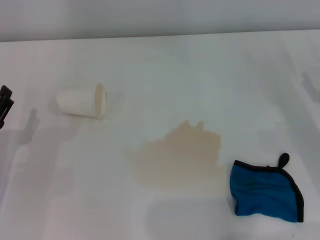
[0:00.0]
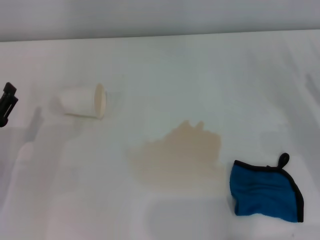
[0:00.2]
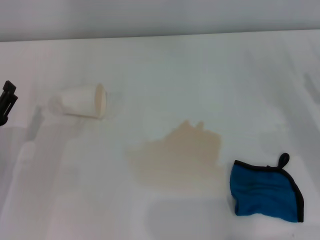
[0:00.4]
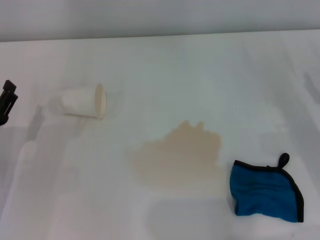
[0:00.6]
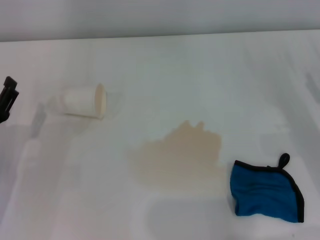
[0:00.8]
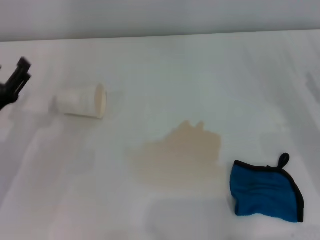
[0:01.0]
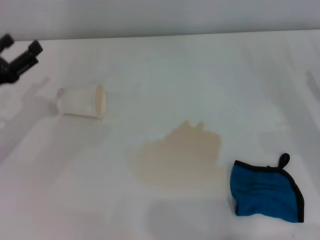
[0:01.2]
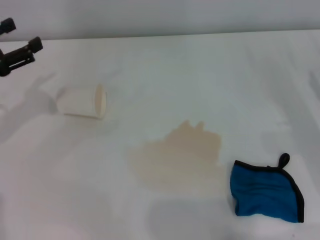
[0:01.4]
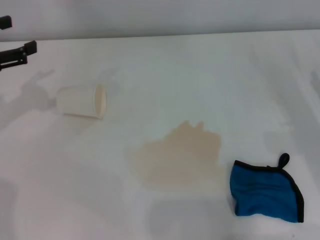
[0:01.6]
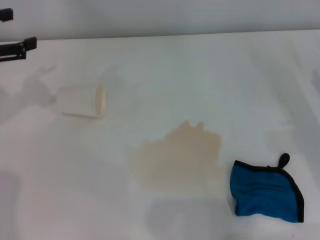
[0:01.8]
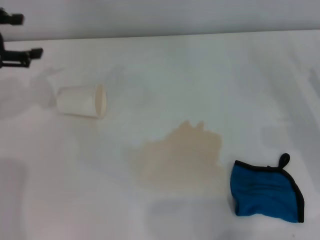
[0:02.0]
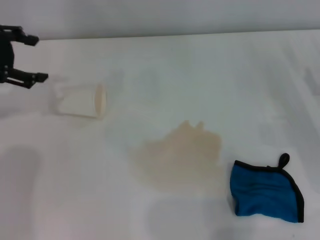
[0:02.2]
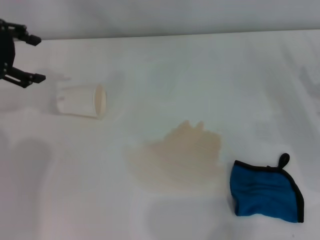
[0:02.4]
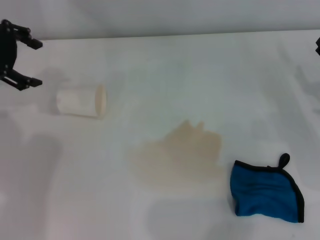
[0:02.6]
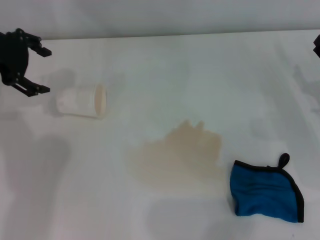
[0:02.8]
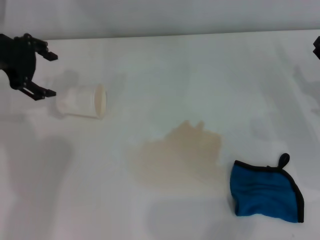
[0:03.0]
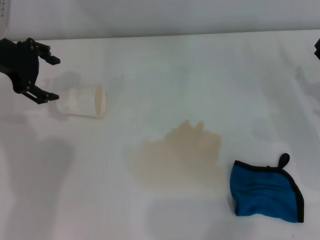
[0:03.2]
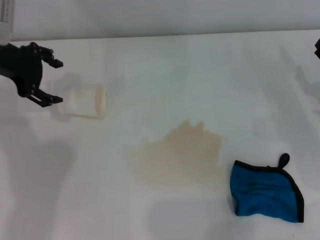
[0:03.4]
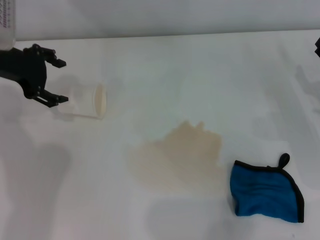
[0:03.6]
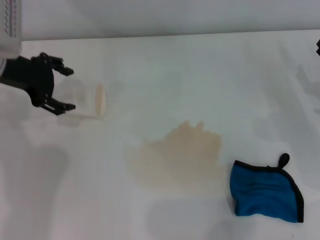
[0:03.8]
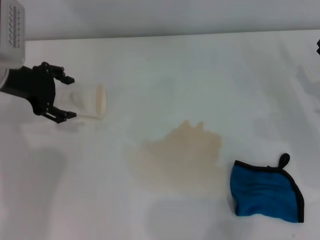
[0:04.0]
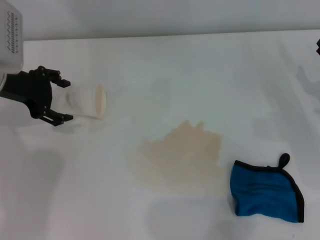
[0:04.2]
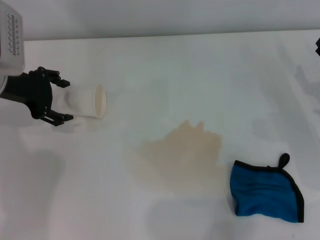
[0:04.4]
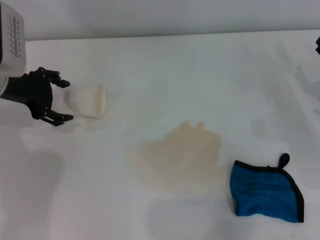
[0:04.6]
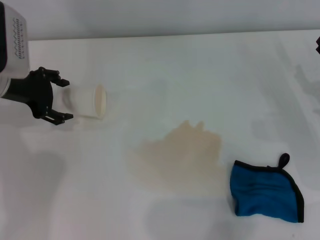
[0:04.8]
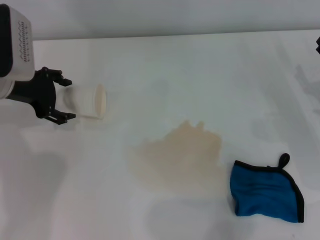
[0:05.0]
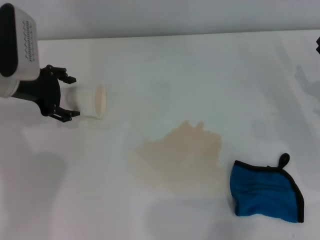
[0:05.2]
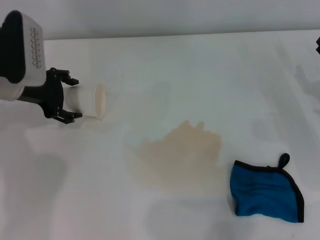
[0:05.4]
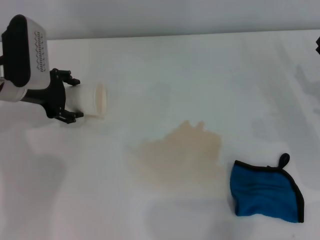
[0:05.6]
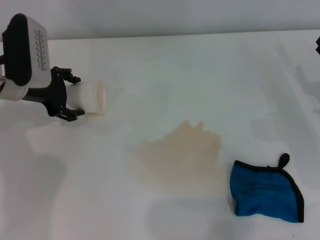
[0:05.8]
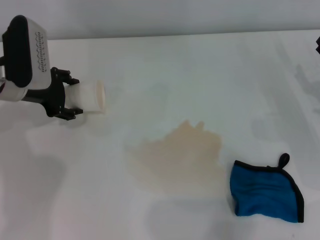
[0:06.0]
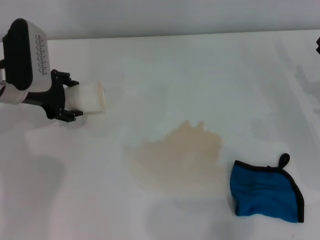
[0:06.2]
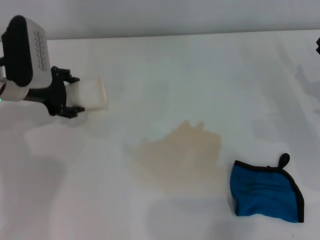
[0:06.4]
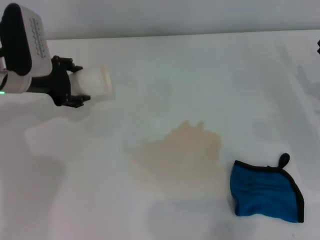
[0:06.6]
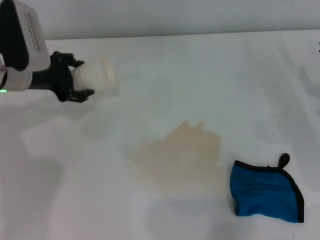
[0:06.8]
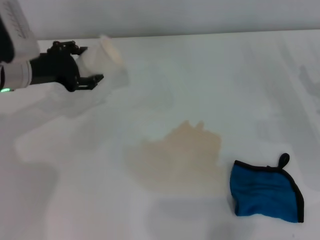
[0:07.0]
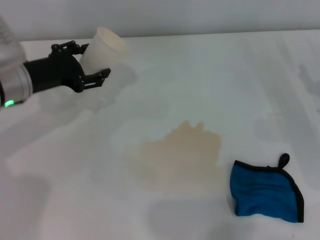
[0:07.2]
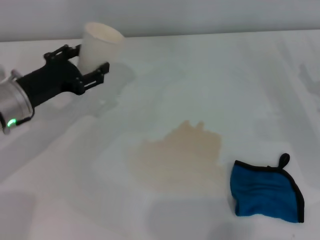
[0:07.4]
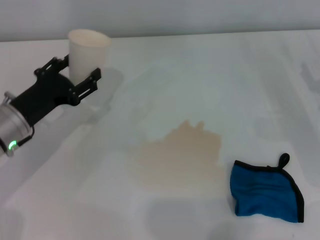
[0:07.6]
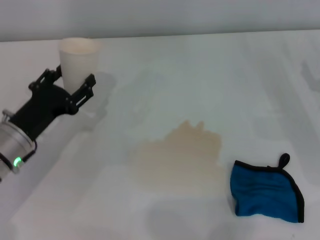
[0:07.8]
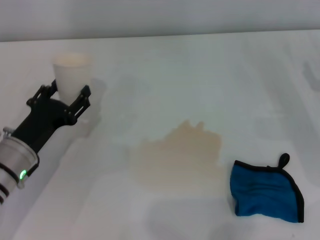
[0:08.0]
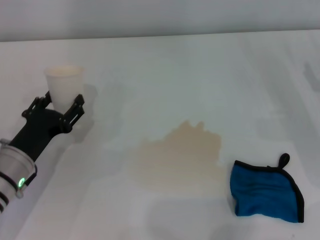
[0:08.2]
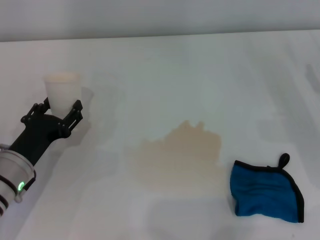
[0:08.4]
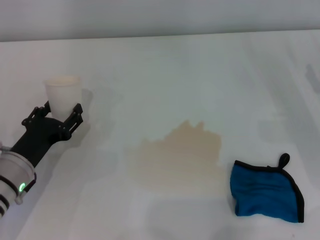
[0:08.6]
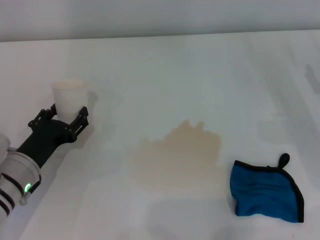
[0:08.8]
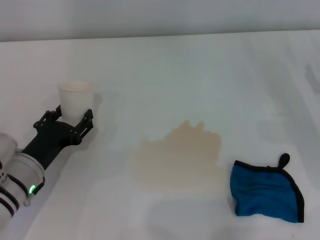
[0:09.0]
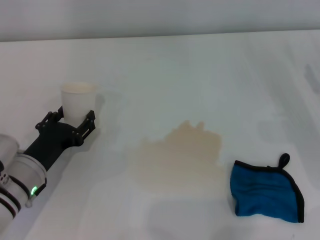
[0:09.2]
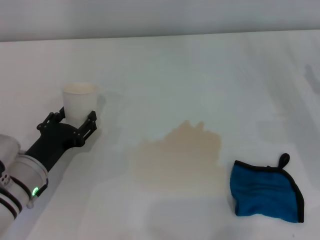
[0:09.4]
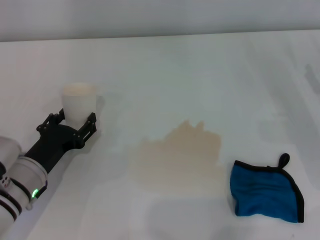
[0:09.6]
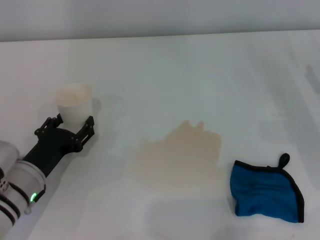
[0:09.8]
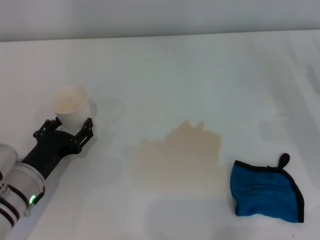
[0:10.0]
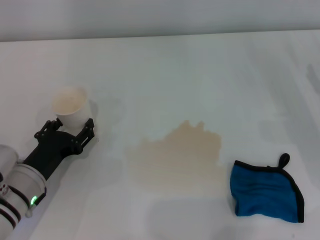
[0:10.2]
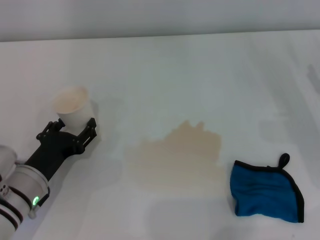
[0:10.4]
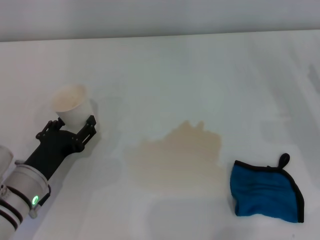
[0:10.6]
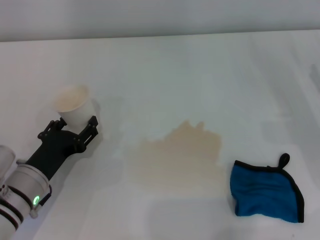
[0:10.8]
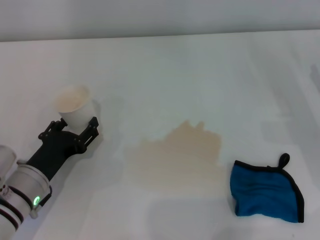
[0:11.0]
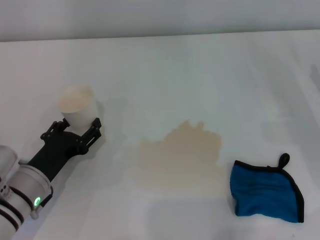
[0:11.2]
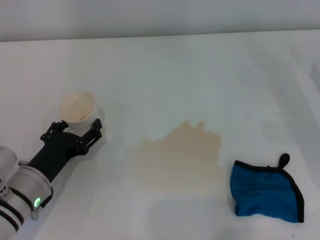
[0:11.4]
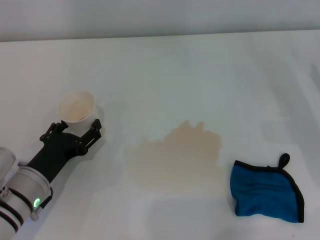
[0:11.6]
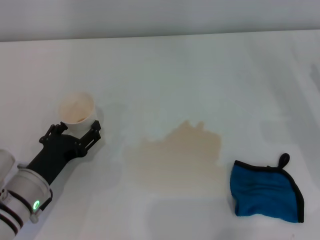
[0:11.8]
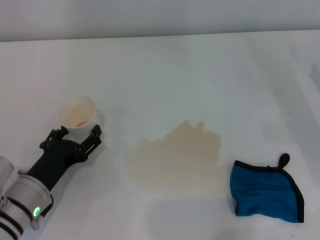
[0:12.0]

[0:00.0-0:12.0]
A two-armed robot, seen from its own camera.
Step, 0:00.0 to 0:06.2: Grasp the paper cup with the left gripper.
0:00.0 to 0:01.6: The left gripper is displaced upward and forward by some 20 cm.
0:01.6 to 0:03.0: The left gripper travels to the right, forward and upward by some 10 cm.
0:03.0 to 0:04.4: The left gripper travels downward by some 5 cm.
0:04.4 to 0:06.0: The grippers make only small movements.
0:06.0 to 0:07.6: The left gripper shifts about 10 cm backward and downward.
0:07.6 to 0:09.0: The left gripper moves downward and backward, some 10 cm.
0:09.0 to 0:12.0: The grippers stay close to where they were, moving slightly.

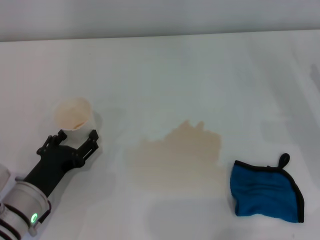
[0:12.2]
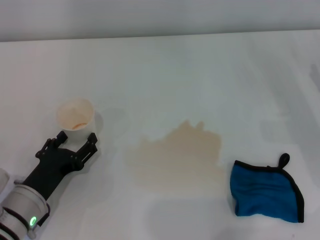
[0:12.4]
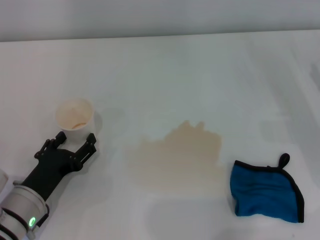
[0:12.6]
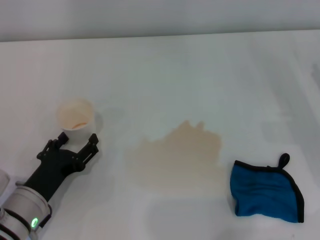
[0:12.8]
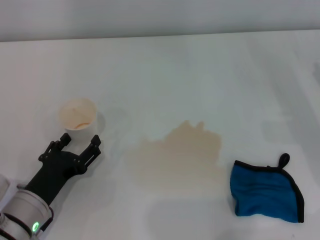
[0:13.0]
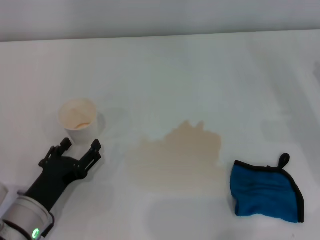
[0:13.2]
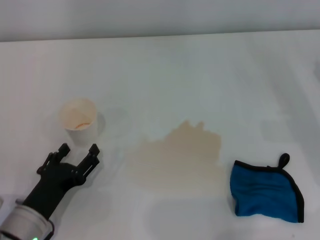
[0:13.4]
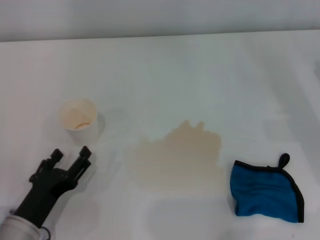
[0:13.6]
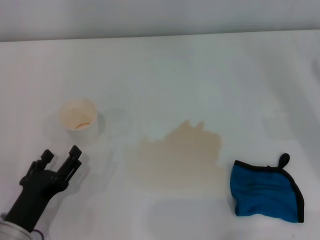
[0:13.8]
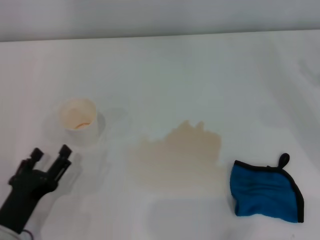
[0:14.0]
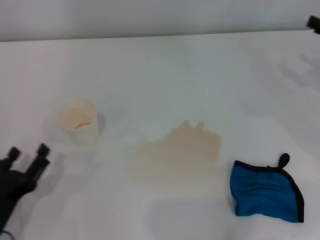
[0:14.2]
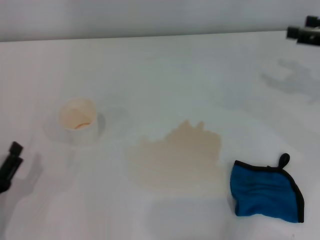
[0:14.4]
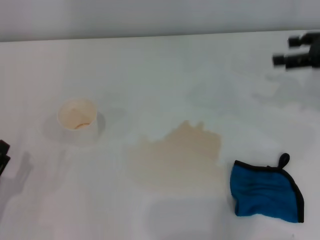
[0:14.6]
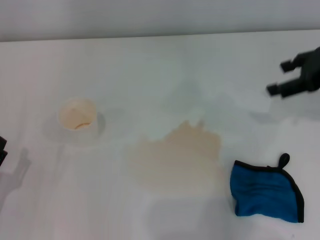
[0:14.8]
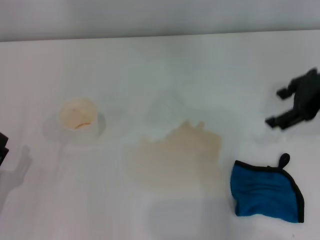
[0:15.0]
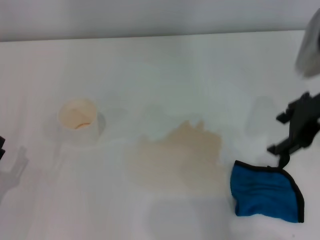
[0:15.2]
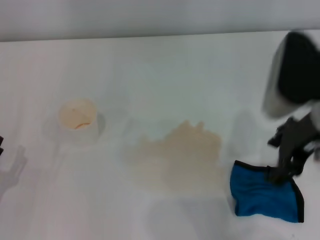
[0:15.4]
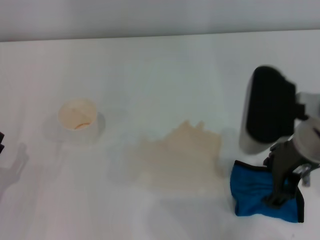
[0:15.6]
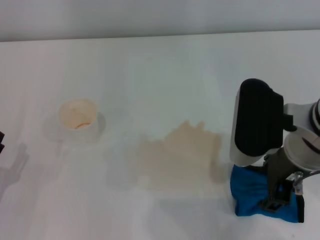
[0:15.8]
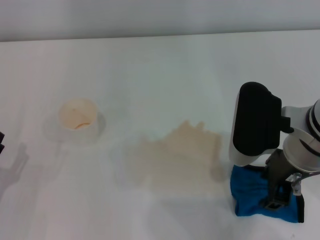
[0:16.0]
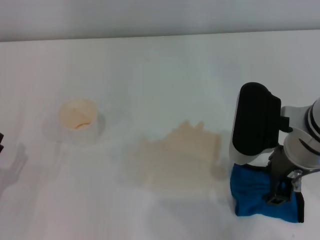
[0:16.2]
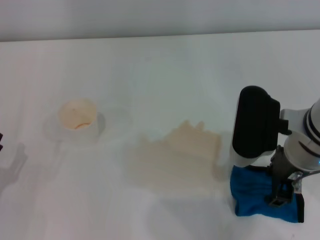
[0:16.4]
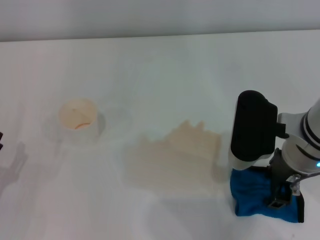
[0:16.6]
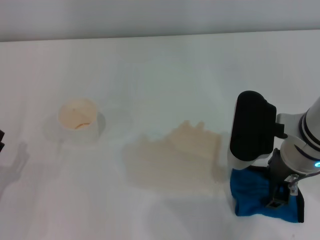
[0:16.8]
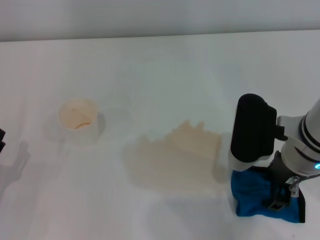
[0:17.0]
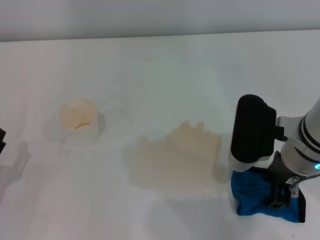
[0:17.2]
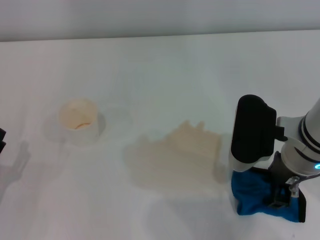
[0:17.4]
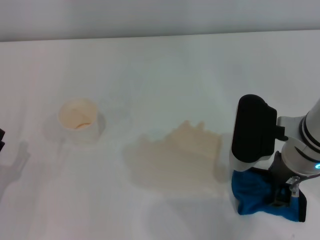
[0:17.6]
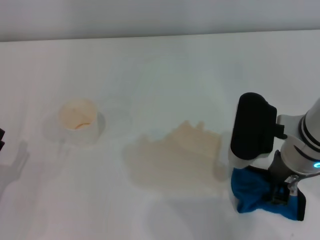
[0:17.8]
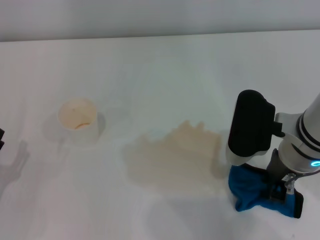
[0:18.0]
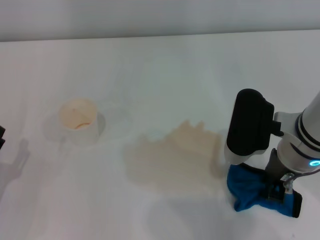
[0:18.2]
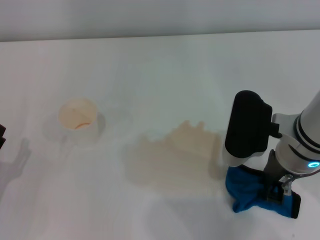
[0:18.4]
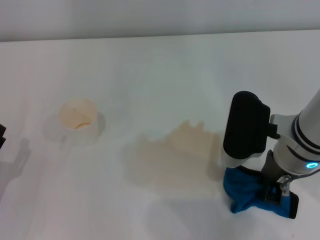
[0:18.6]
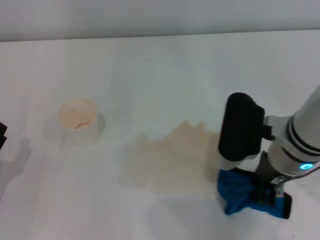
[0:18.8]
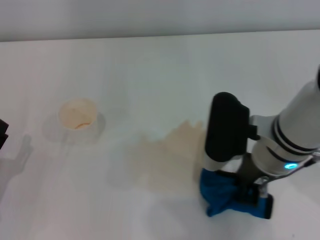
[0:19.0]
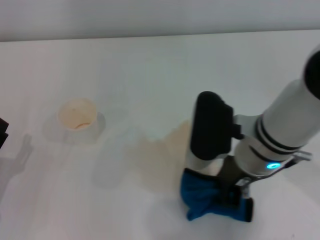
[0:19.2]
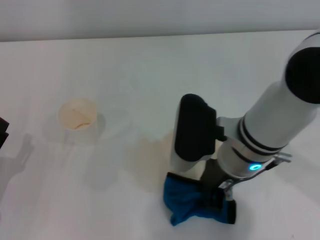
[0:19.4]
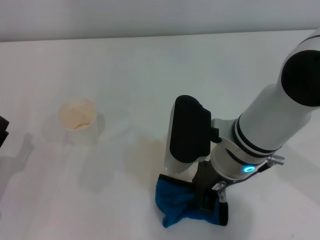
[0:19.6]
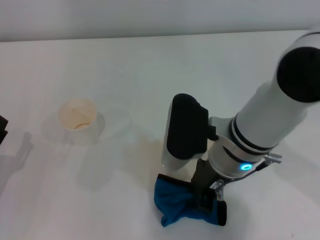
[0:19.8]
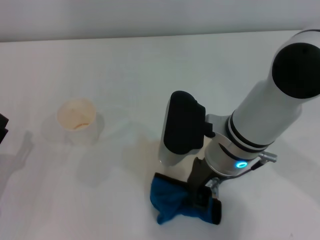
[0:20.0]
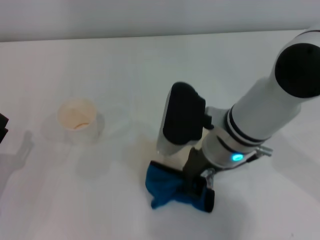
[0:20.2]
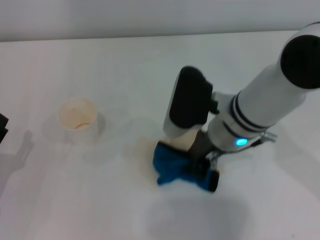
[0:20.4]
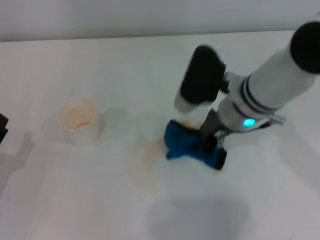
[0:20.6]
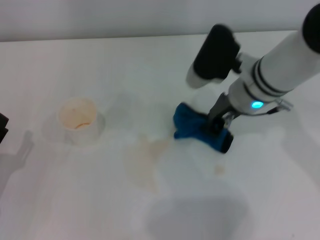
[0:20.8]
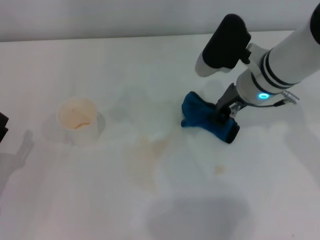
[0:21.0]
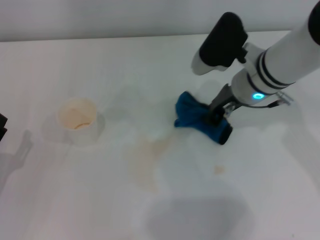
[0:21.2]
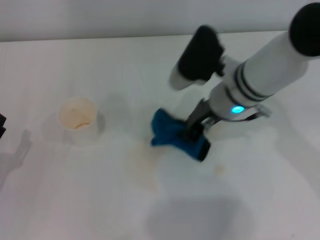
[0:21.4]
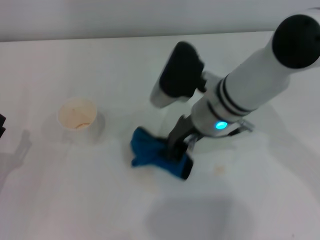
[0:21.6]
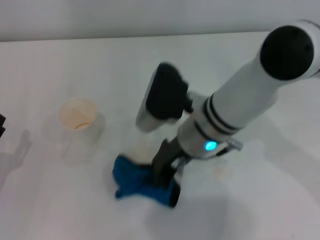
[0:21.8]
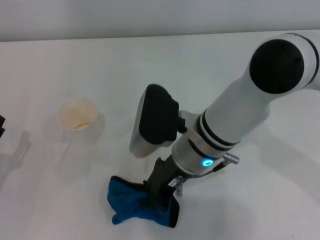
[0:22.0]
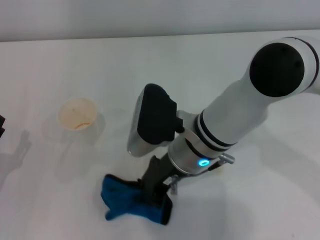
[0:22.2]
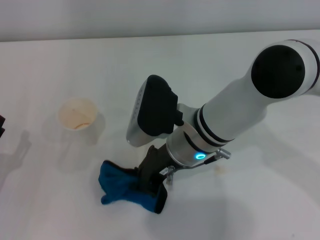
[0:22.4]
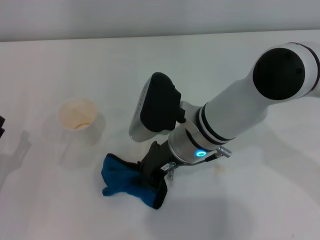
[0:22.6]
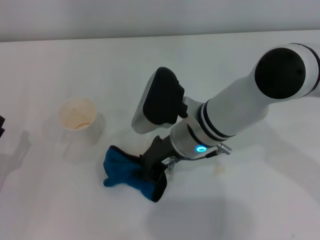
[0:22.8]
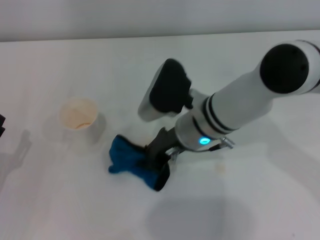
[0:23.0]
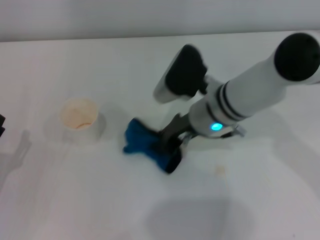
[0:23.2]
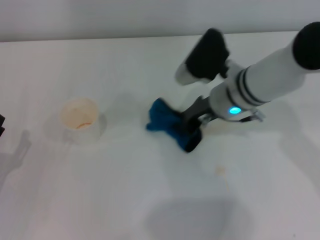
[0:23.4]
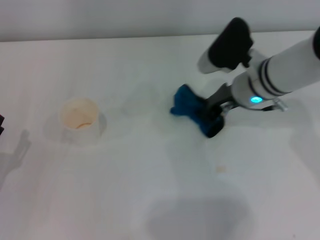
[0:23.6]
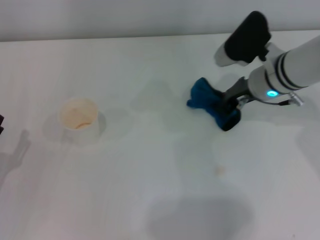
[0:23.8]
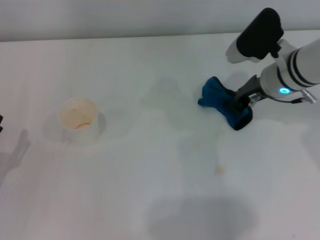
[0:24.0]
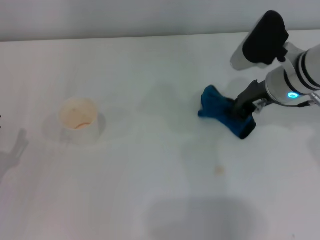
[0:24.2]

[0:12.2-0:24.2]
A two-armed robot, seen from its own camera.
Step, 0:12.8 to 0:18.4: Grasp the rag with the right gripper.
0:12.2 to 0:13.8: The left gripper moves backward, approximately 5 cm.
0:13.8 to 0:15.2: The left gripper moves to the left, some 10 cm. The right gripper moves to the left and upward, roughly 20 cm.
0:15.2 to 0:16.6: The right gripper goes roughly 10 cm to the left and downward.
0:16.6 to 0:18.2: The right gripper closes up.
0:18.2 to 0:19.8: The right gripper travels to the left by roughly 10 cm.
0:19.8 to 0:21.2: The right gripper heads forward and to the right, covering roughly 10 cm.
0:21.2 to 0:22.6: The right gripper travels to the left and backward by approximately 10 cm.
0:22.6 to 0:24.2: The right gripper is displaced to the right by roughly 15 cm.
